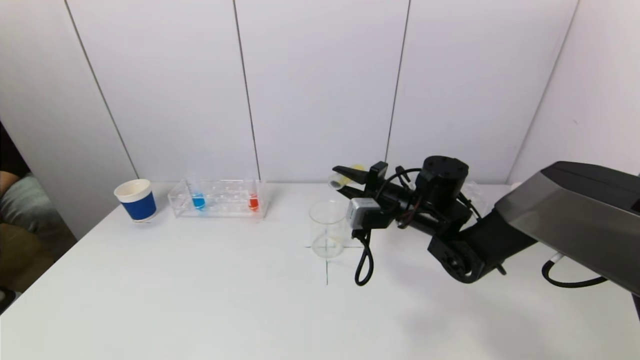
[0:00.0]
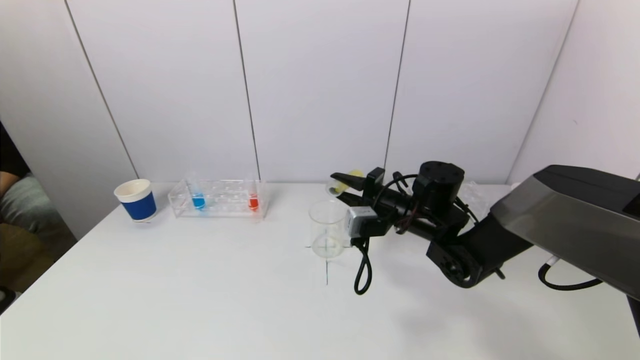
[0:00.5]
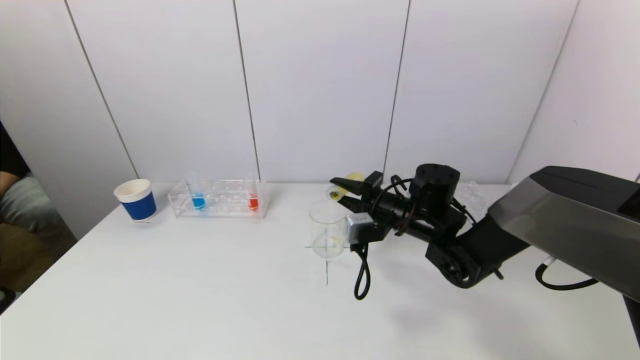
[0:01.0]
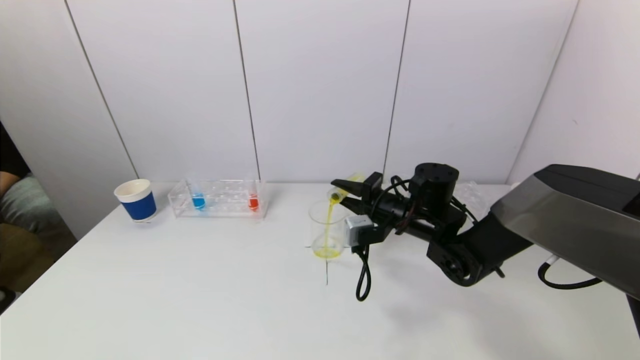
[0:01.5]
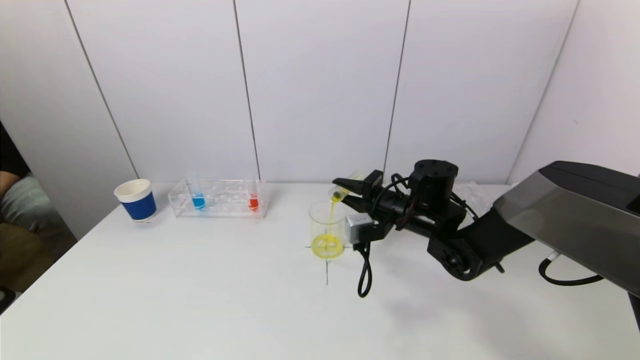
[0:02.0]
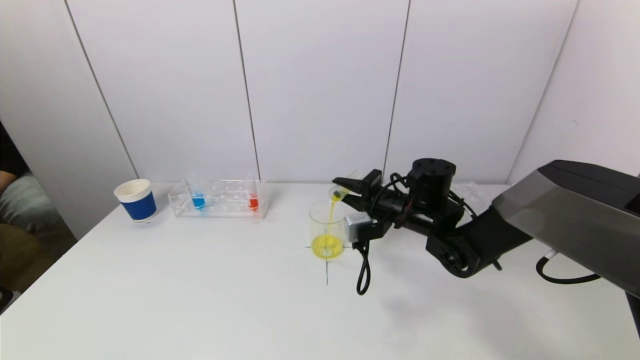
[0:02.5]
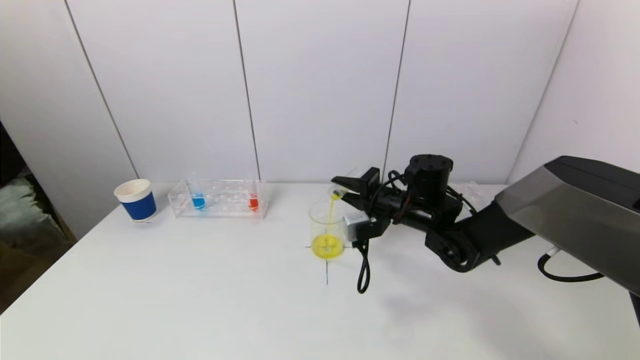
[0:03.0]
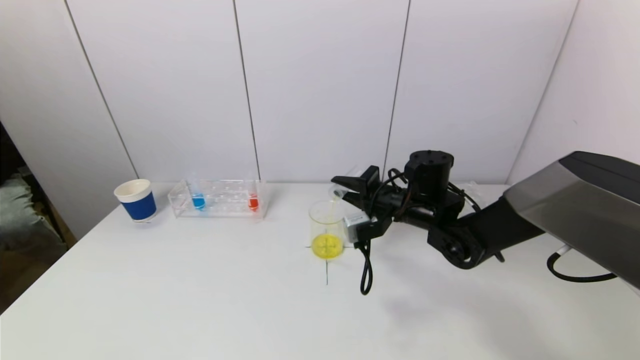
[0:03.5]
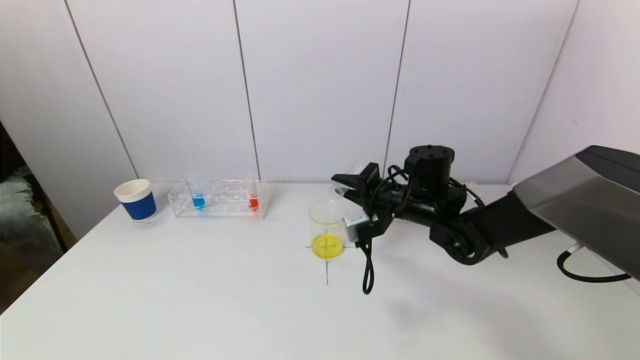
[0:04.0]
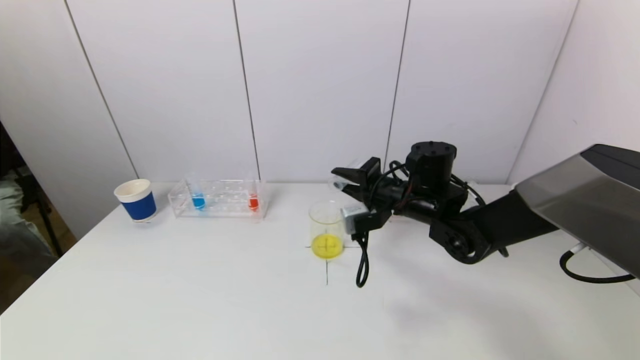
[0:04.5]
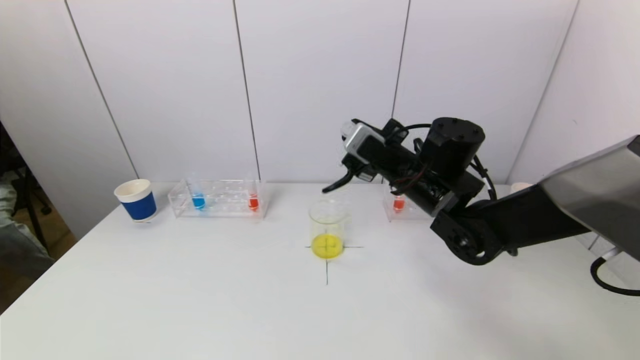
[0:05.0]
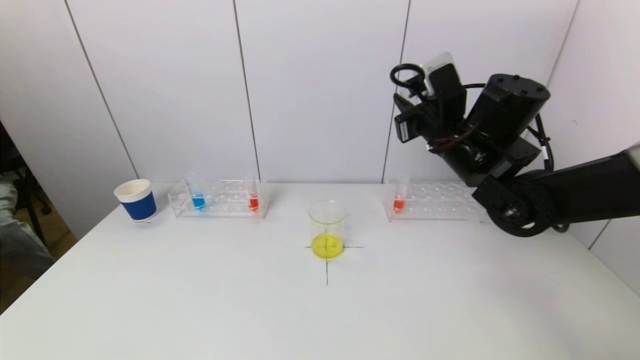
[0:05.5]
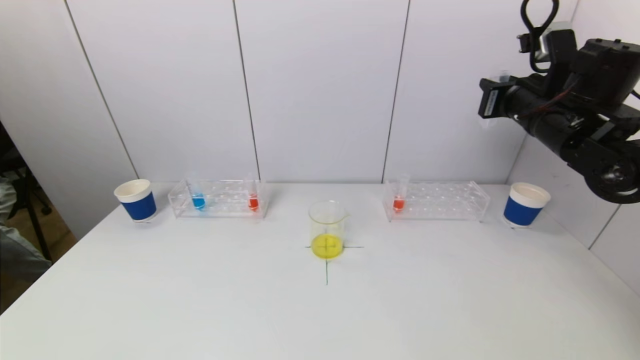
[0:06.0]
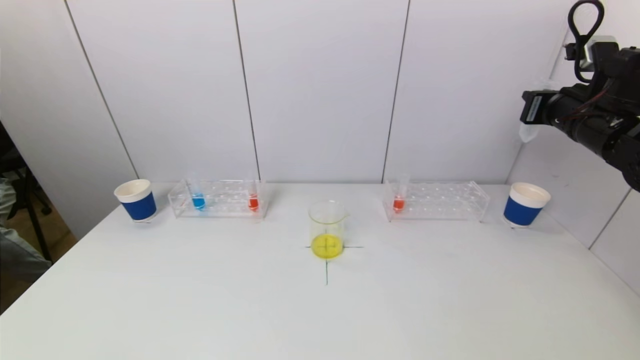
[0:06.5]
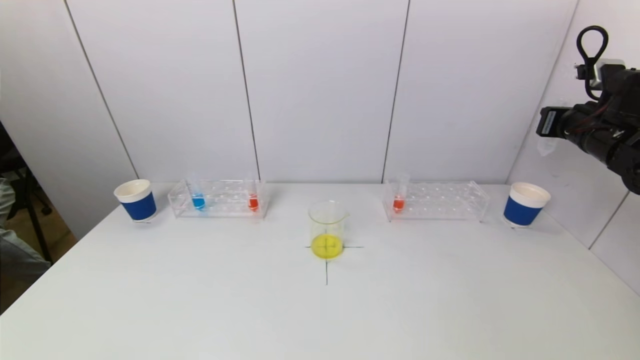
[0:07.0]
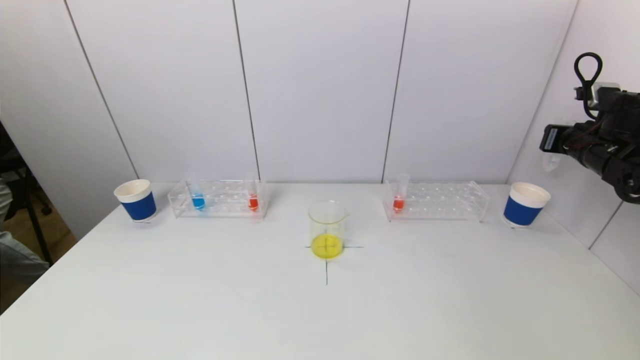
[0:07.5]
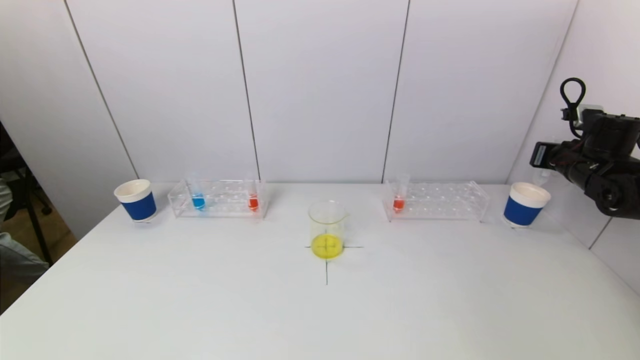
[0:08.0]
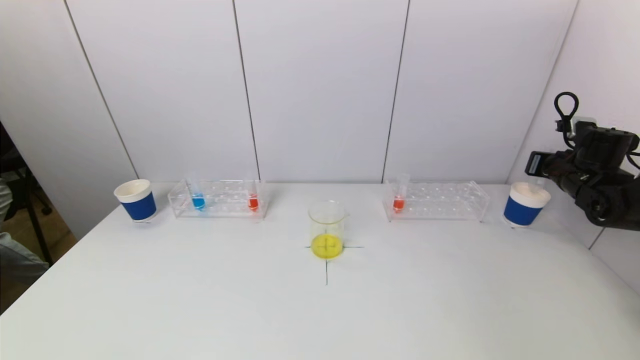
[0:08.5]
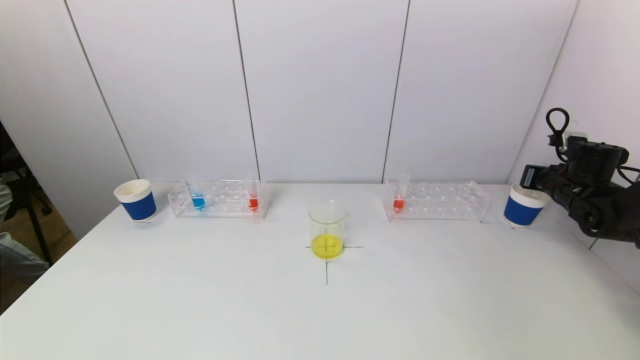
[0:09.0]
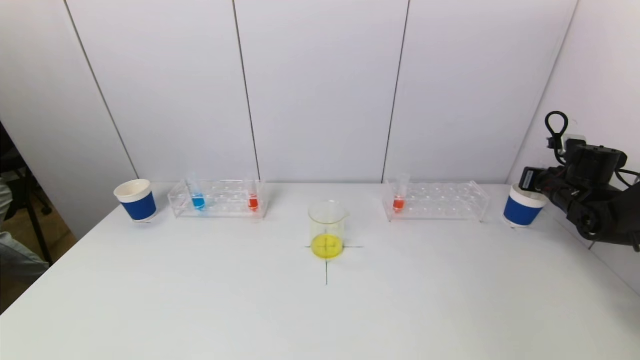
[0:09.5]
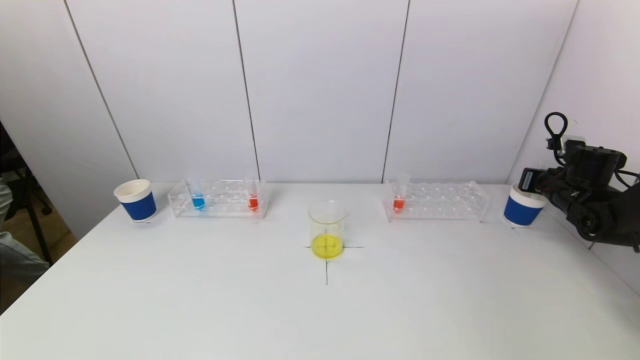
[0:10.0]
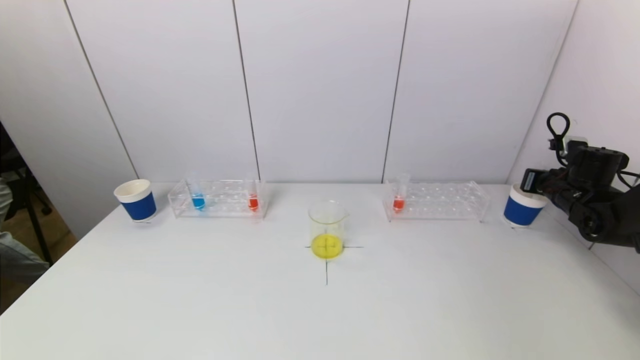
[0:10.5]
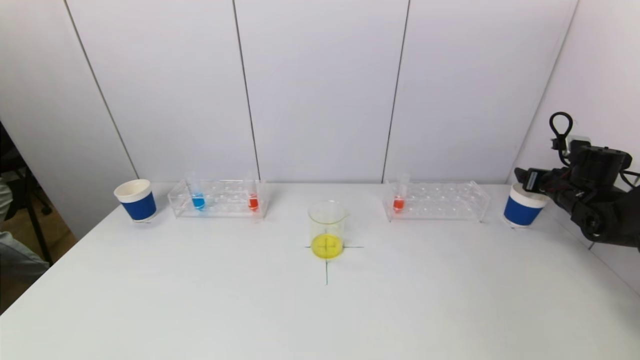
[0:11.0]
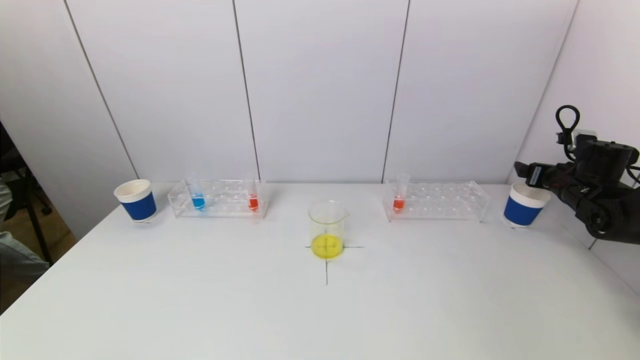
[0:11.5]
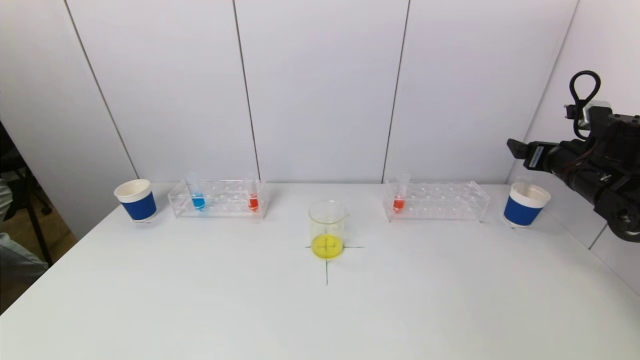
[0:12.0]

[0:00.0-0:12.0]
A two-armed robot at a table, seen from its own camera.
Task of the whole recording: pick up a test tube with pigment on left test tube rack and a test tube with pigment on right test tube rack by grippers and pour them into the beaker.
Step, 0:00.0 to 0:04.5: Pour the yellow reagent into the graduated cylinder with the right gripper.
Step, 0:05.0 to 0:10.5: Place the test tube into the paper cup with the right gripper.
0:00.0 to 0:02.0: The grippers move only a little.
0:02.0 to 0:04.0: There are only small adjustments of the grippers.
0:04.0 to 0:06.0: The right gripper heads to the right and upward, covering approximately 20 cm.
0:06.0 to 0:08.0: The right gripper is displaced to the right and downward by some 20 cm.
0:08.0 to 0:10.0: The right gripper heads downward, covering approximately 5 cm.
0:10.0 to 0:12.0: The right gripper heads upward, backward and to the left, covering approximately 10 cm, and opens its fingers.

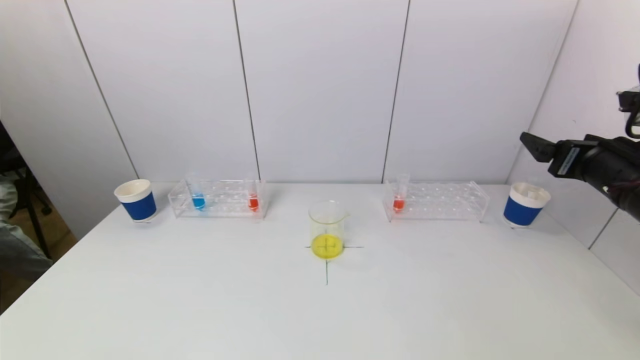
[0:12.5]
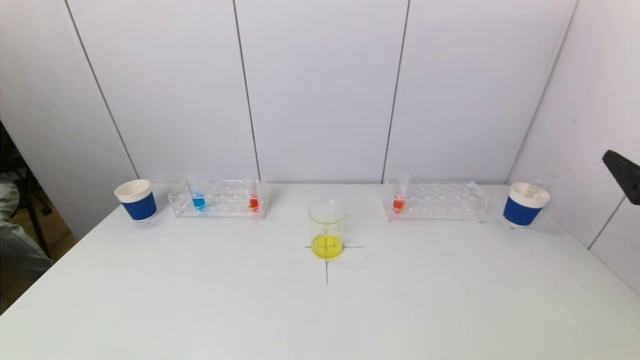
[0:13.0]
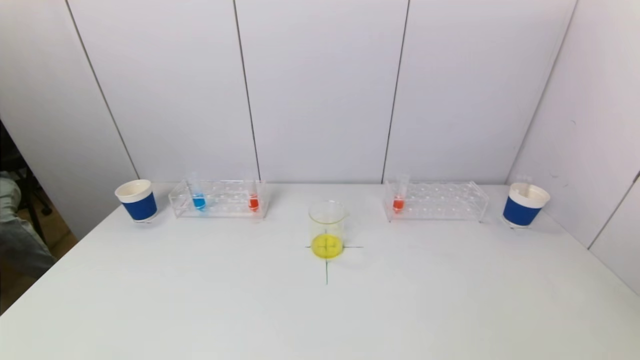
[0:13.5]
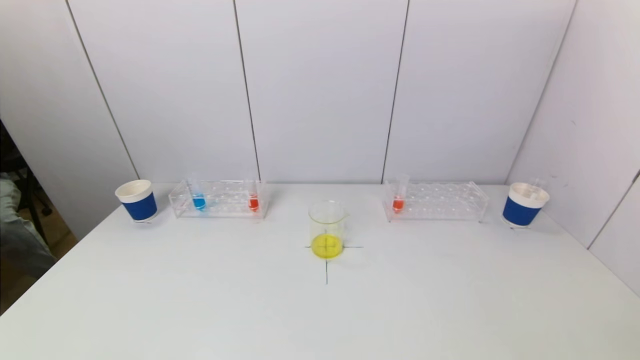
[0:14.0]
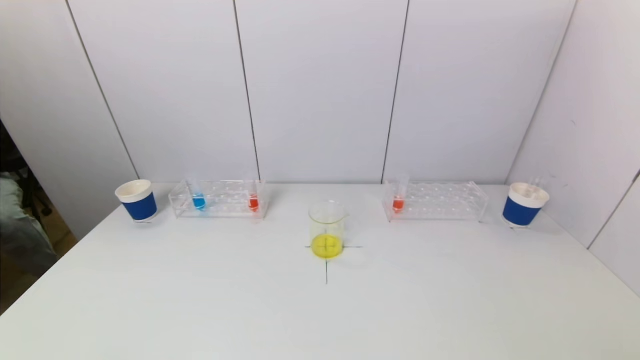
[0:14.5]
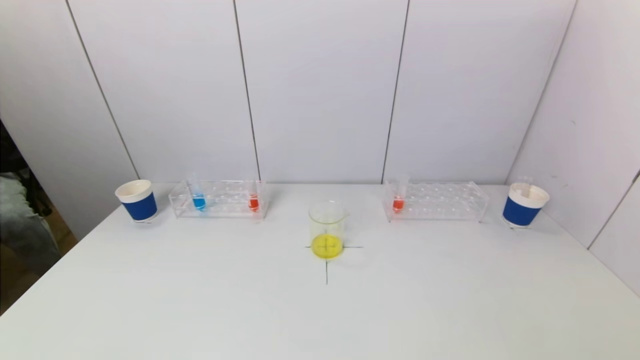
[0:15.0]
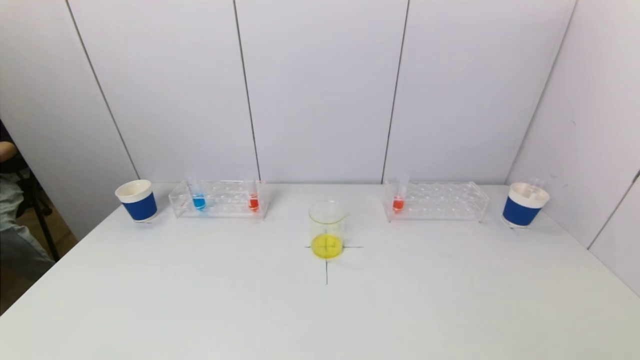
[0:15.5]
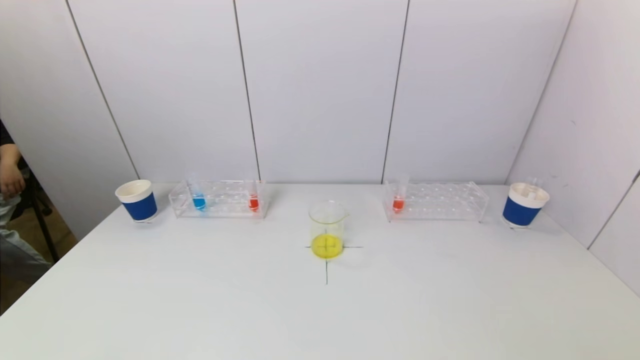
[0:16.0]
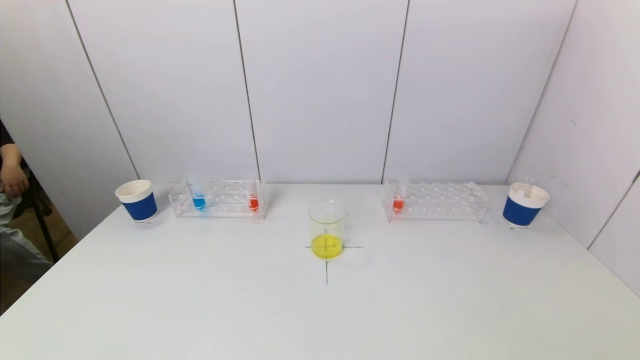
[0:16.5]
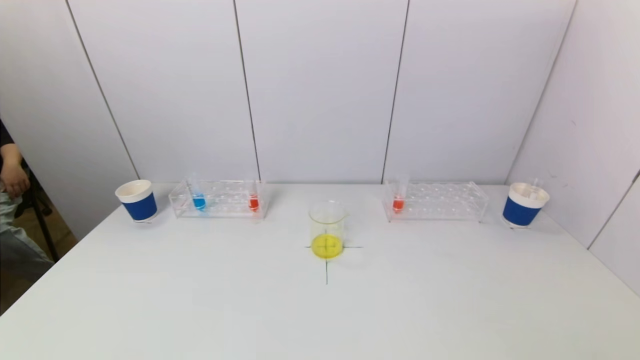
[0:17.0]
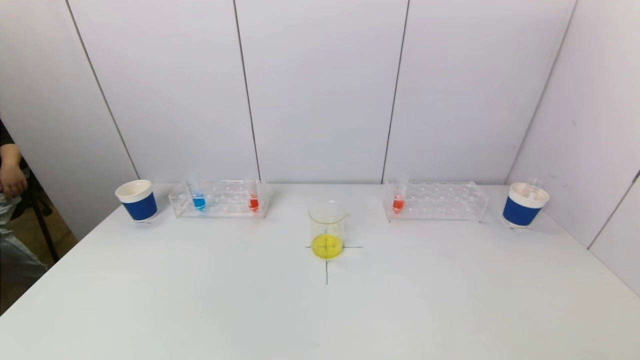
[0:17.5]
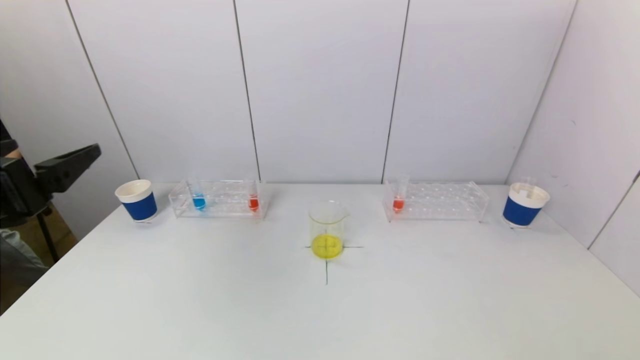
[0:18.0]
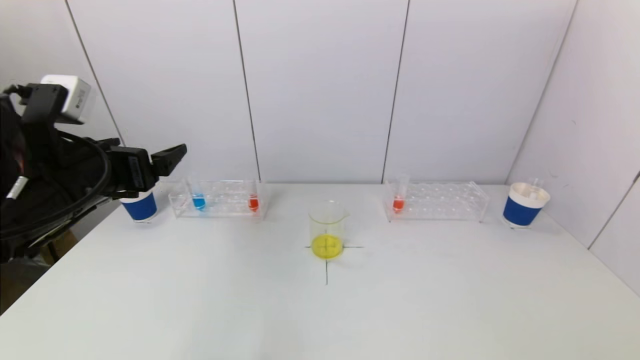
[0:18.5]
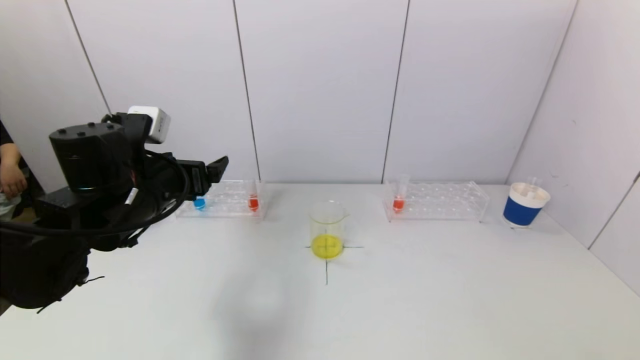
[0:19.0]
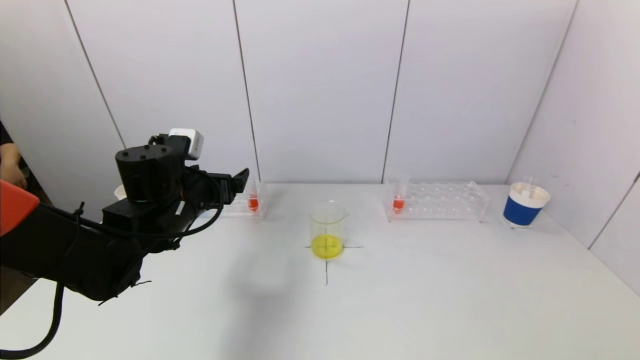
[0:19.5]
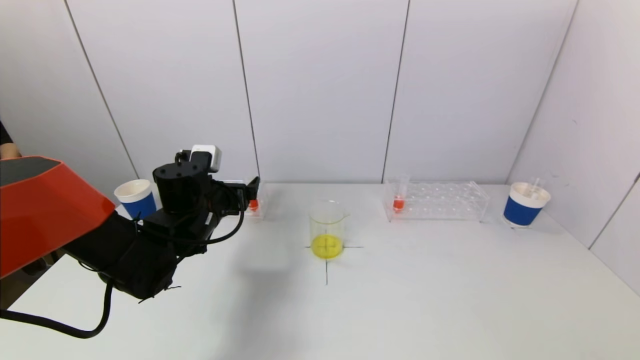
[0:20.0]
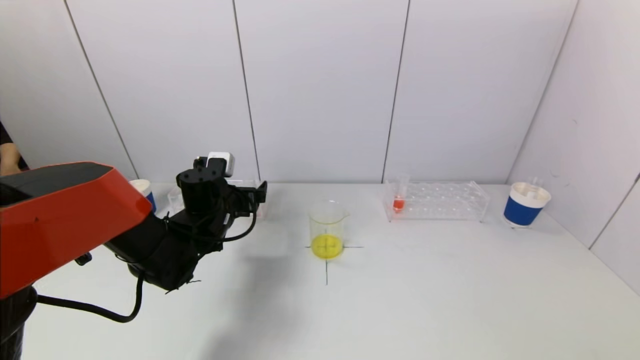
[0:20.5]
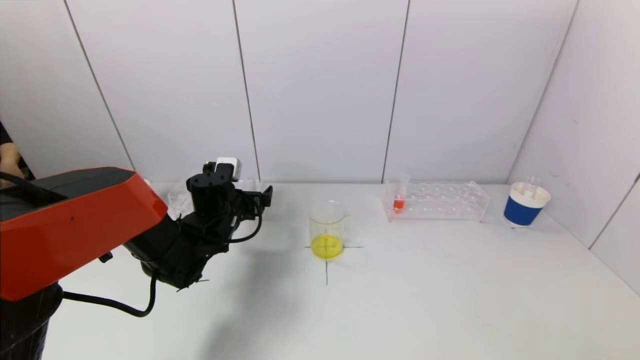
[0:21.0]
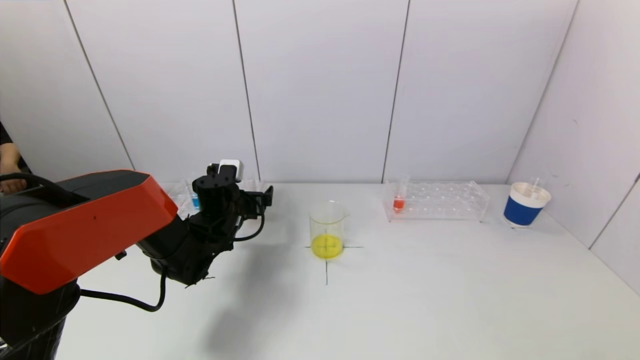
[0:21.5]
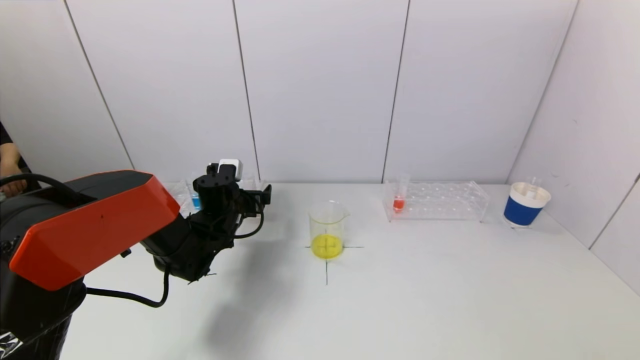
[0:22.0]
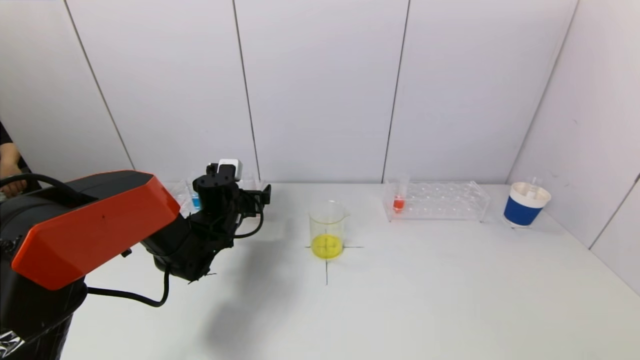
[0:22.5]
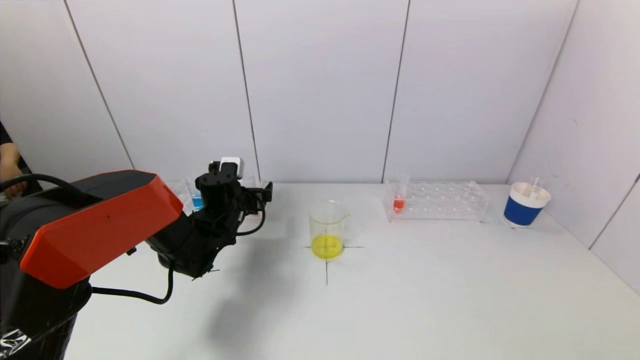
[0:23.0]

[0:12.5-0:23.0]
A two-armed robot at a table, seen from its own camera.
Task of the whole recording: pick up a test tube with pigment on left test tube rack and a test tube with pigment on right test tube rack by grippers and pour them into the beaker.
0:12.5 to 0:14.5: The right gripper goes some 30 cm backward and downward.
0:14.5 to 0:16.5: The grippers make only small movements.
0:16.5 to 0:19.0: The left gripper heads forward, covering about 30 cm.
0:19.0 to 0:21.0: The left gripper travels downward, forward and to the right by approximately 15 cm.
0:21.0 to 0:23.0: The grippers make only small movements.
